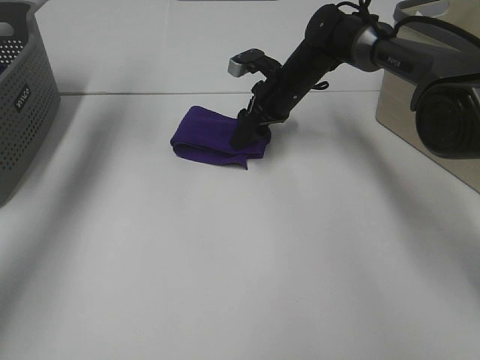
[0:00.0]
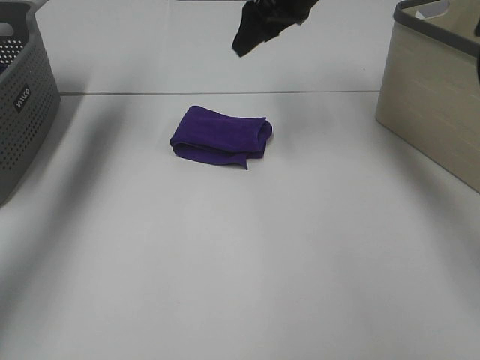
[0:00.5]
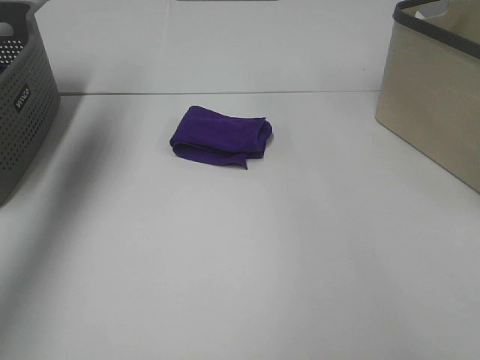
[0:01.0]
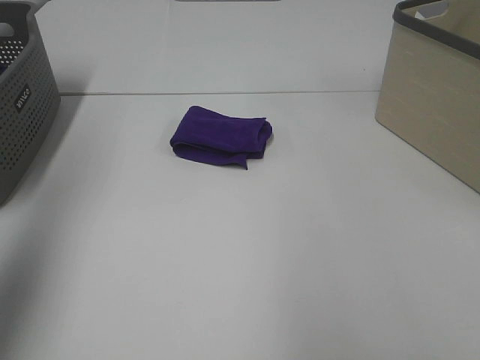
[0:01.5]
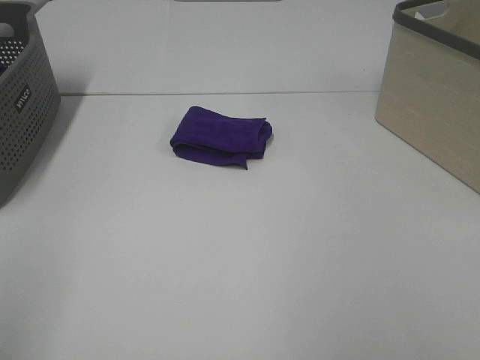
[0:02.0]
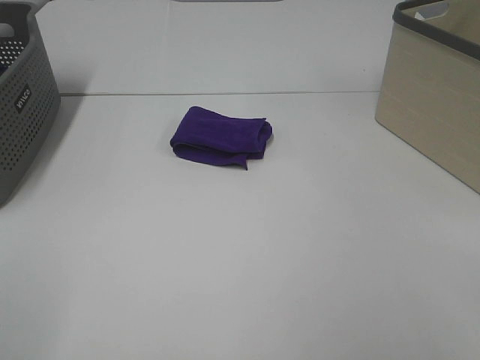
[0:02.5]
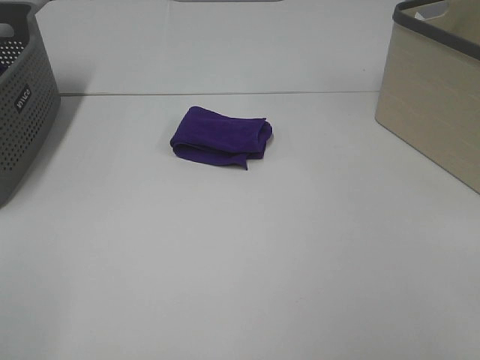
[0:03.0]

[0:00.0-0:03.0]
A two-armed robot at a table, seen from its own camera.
Task of the whole recording: Fold towels.
0:00.0 to 0:01.5: The right gripper moves backward, upward and to the right, about 50 cm. The left gripper is displaced backward by roughly 30 cm.
0:01.5 to 0:03.0: The left gripper goes some 20 cm backward and downward.
